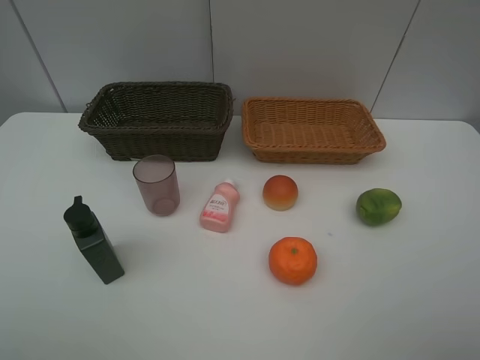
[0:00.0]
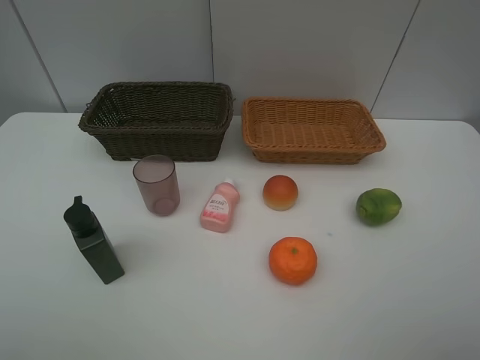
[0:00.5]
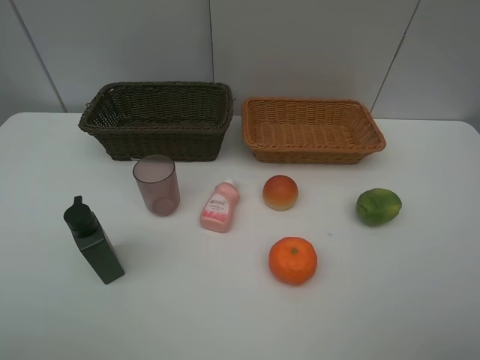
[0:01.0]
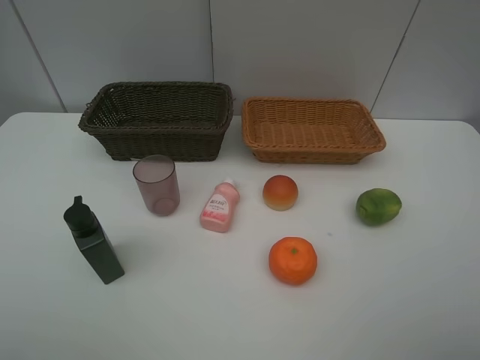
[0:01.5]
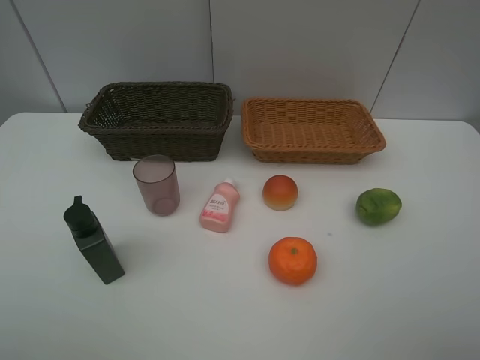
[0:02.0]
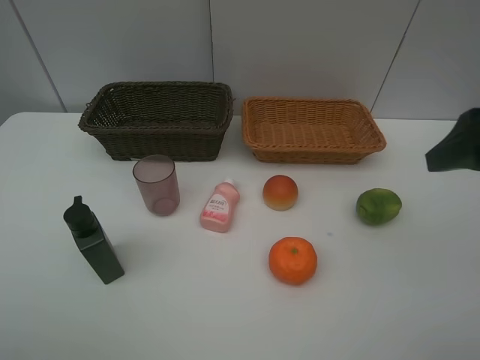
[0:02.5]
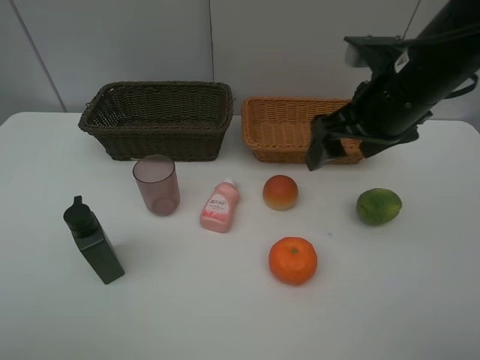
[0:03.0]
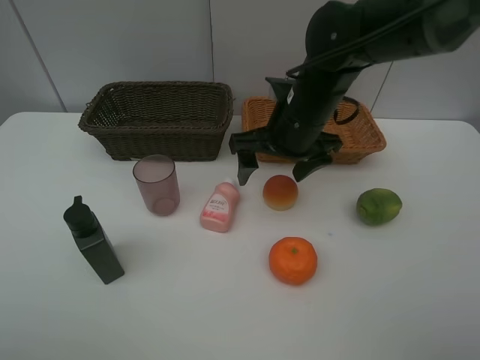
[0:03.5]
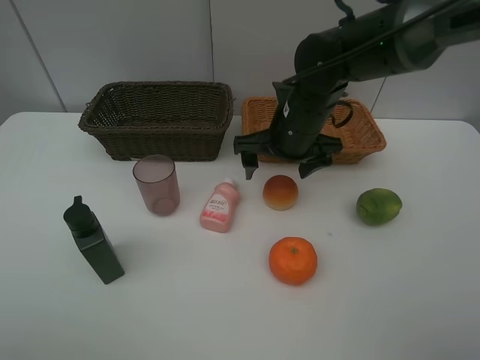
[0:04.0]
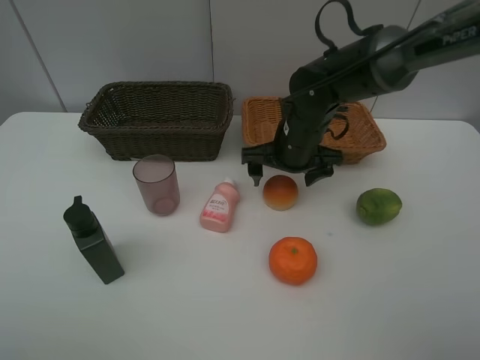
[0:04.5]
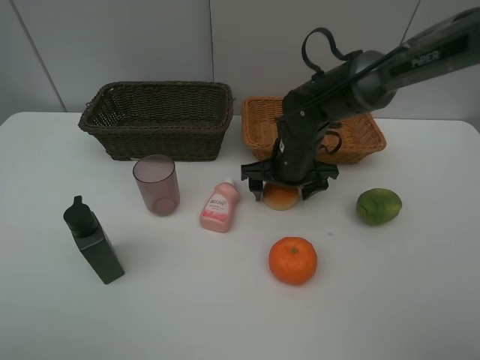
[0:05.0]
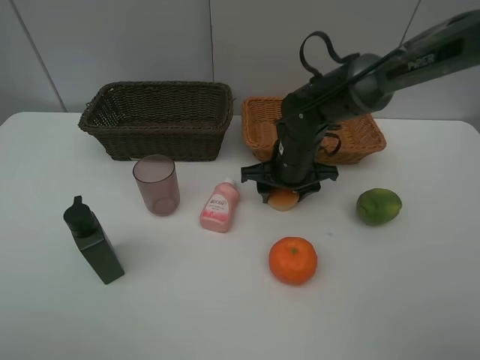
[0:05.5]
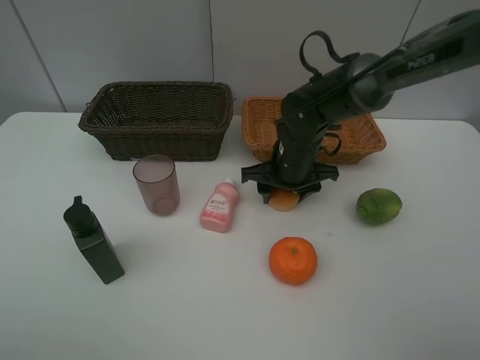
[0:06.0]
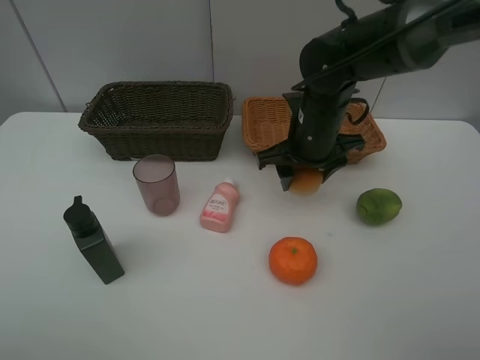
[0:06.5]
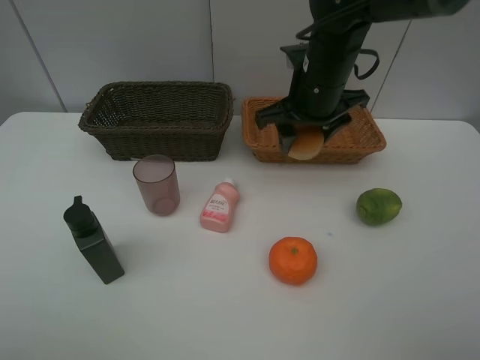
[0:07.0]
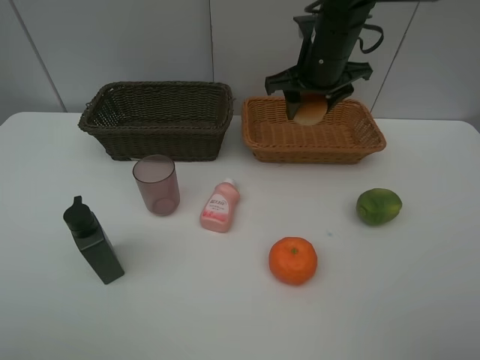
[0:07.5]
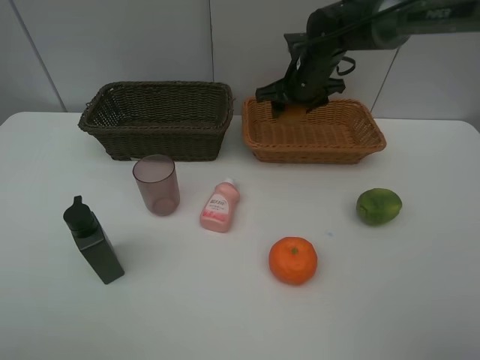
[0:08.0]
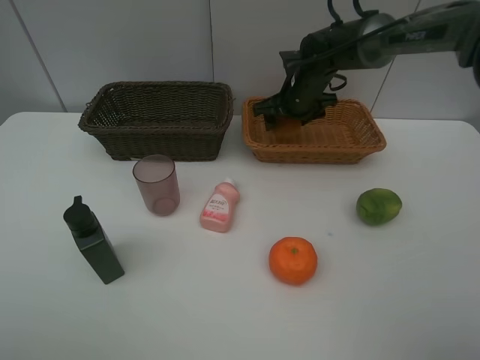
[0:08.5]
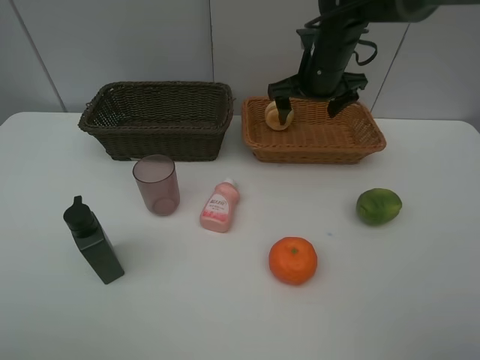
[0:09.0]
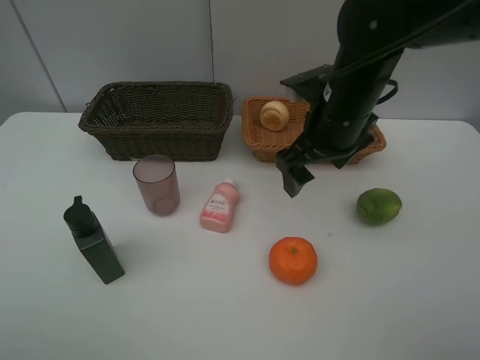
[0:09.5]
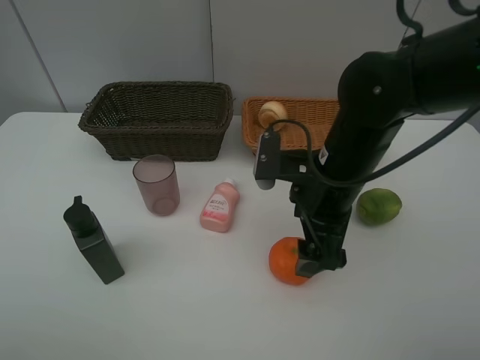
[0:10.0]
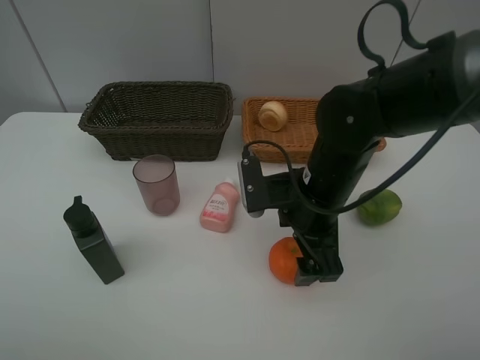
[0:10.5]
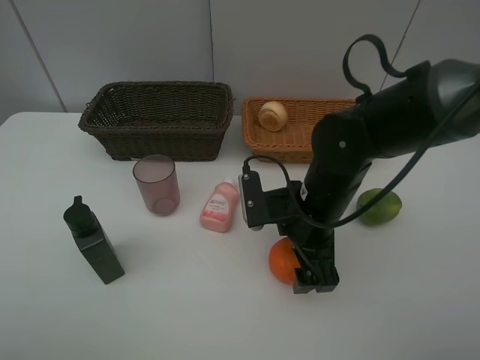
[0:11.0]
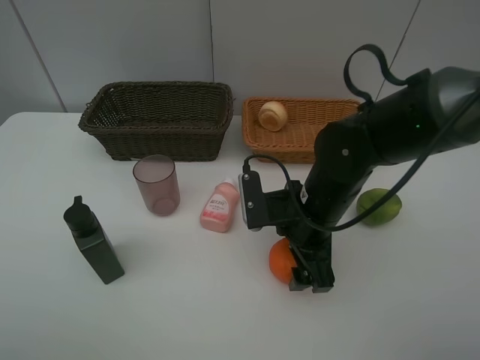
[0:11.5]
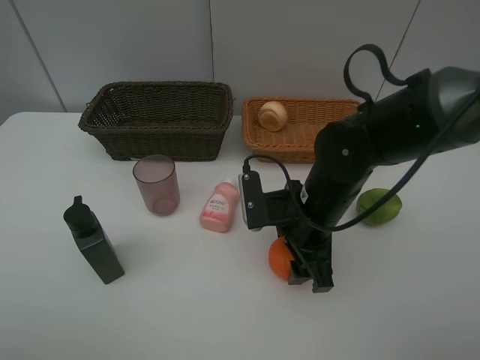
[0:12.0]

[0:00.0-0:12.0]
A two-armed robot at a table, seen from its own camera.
Task of the whole recording: place multiple objects separately in different baskets.
0:00.0 to 0:02.0: The two grippers keep their place.
0:02.0 to 0:04.0: The right gripper shifts some 40 cm forward and to the left.
0:04.0 to 0:06.0: The right gripper is displaced downward by roughly 5 cm, and closes.
0:06.0 to 0:08.0: The right gripper travels forward and upward by about 15 cm.
0:08.0 to 0:10.0: The right gripper travels backward by some 25 cm, and opens up.
0:10.0 to 0:12.0: The right gripper heads downward, covering roughly 5 cm, and closes its fingers.

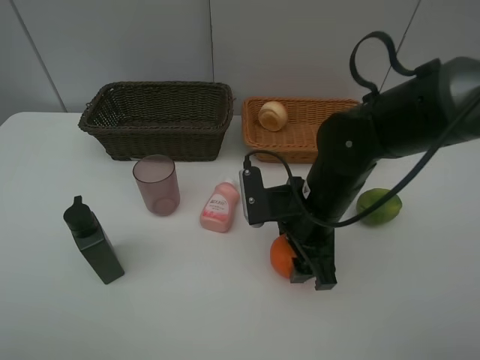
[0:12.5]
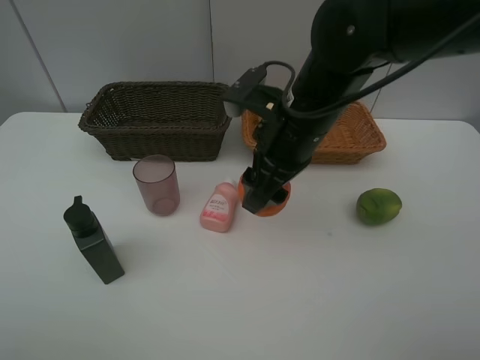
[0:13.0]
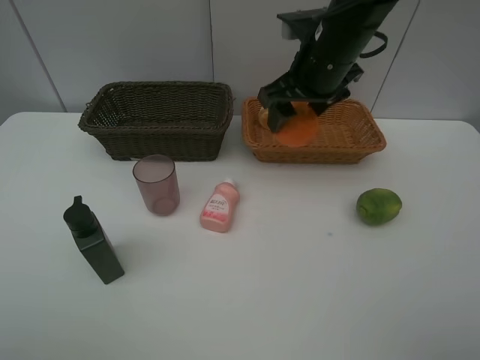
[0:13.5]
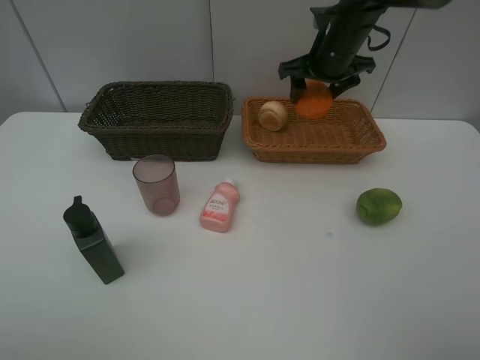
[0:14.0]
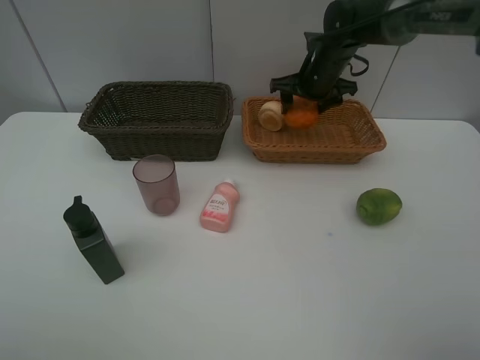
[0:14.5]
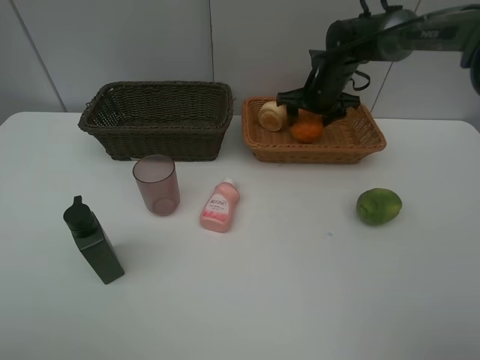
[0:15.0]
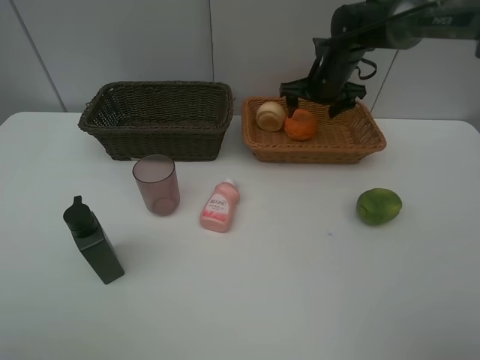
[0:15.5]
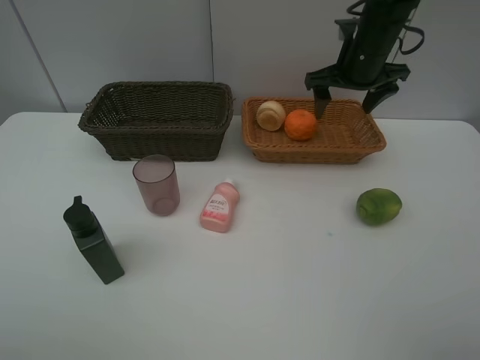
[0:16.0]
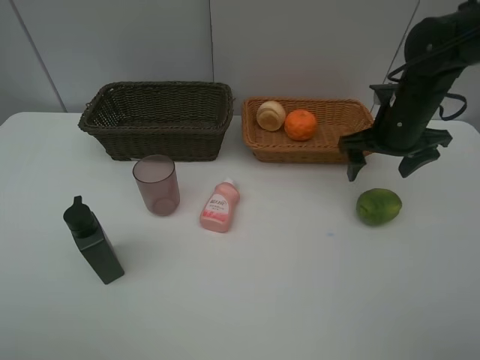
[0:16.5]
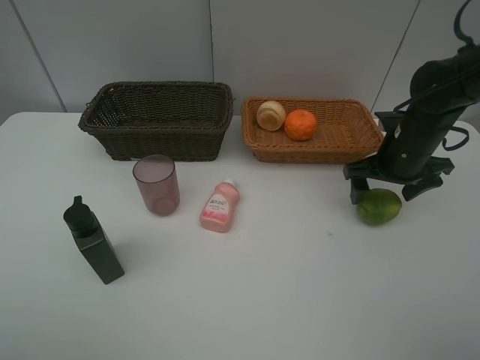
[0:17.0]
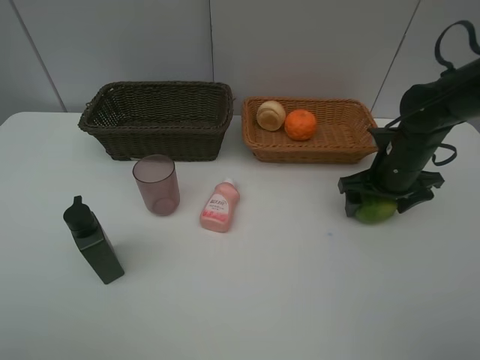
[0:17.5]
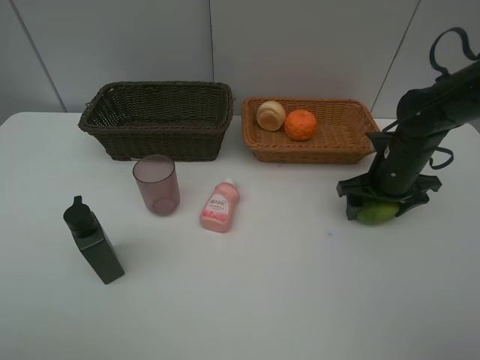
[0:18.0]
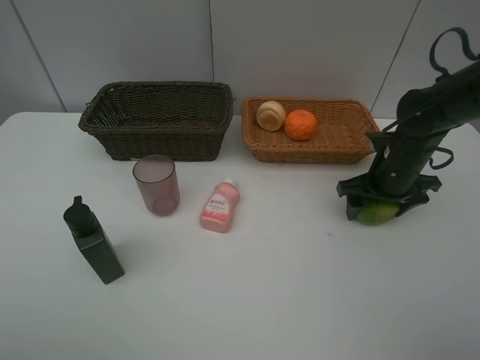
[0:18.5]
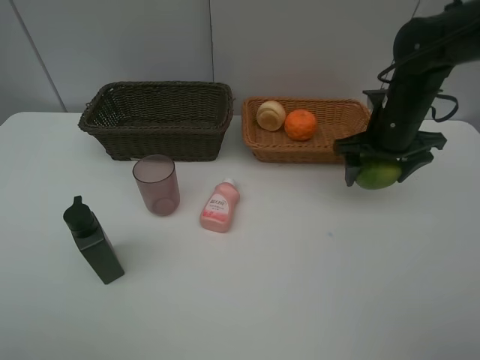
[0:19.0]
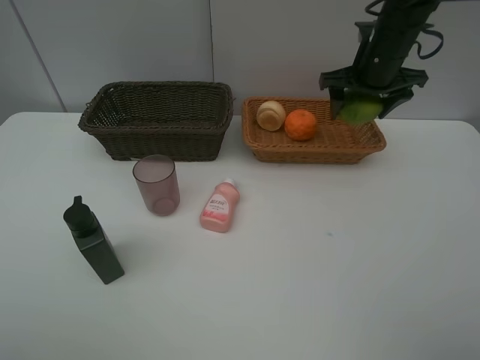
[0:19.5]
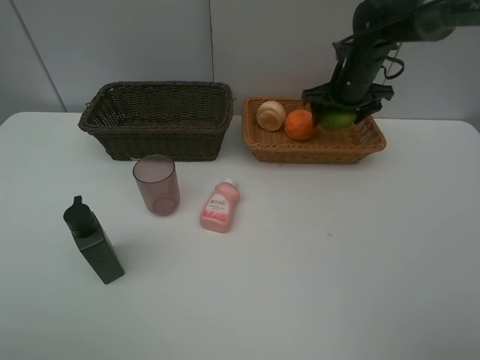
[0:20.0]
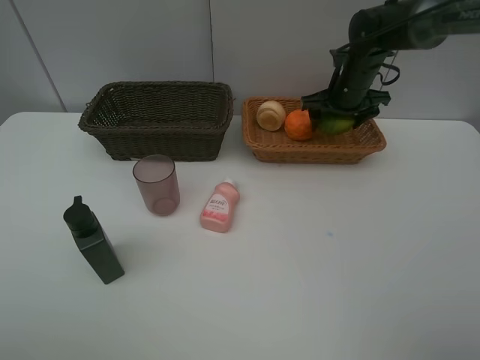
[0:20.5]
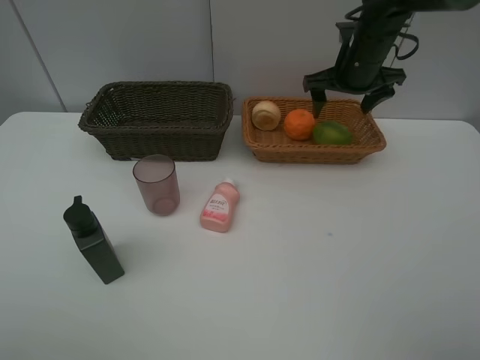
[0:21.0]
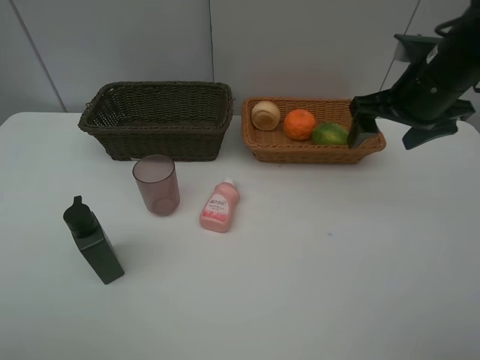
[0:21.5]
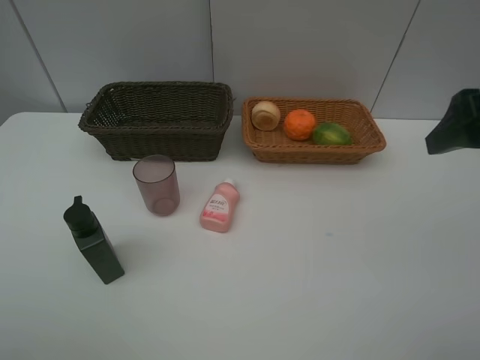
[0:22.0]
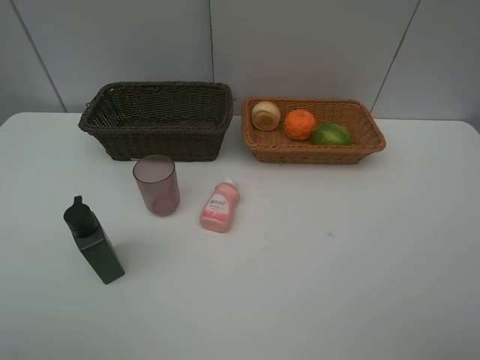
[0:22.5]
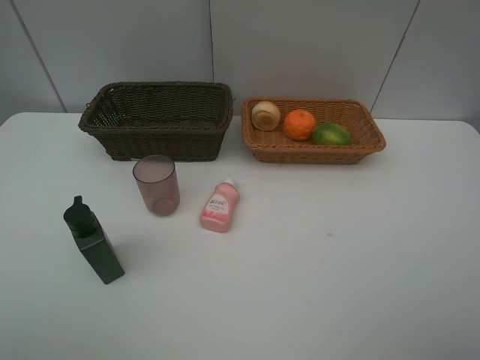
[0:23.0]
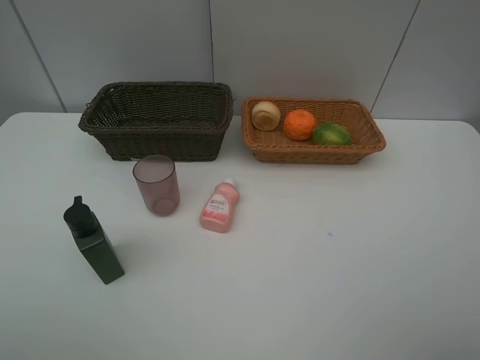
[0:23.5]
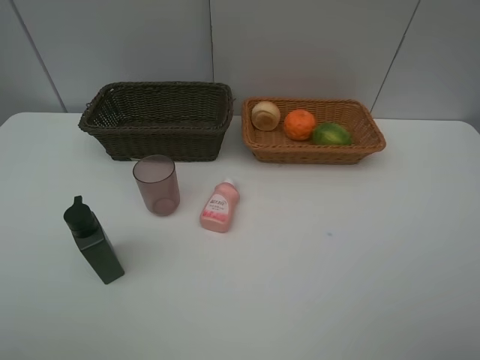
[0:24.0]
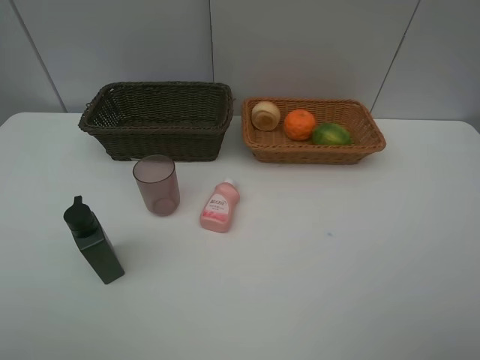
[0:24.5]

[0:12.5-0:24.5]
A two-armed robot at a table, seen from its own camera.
Task of the whole recording: place multiple objects separately in different baskets.
0:12.5 to 0:14.5: The right gripper is displaced forward by some 25 cm.
0:14.5 to 0:16.5: The right gripper shifts approximately 15 cm backward and to the right, and opens its fingers.
0:16.5 to 0:18.5: The right gripper shifts approximately 5 cm downward.
0:18.5 to 0:20.5: The right gripper heads forward and upward, covering some 15 cm.
0:20.5 to 0:22.5: The right gripper travels backward by some 40 cm.

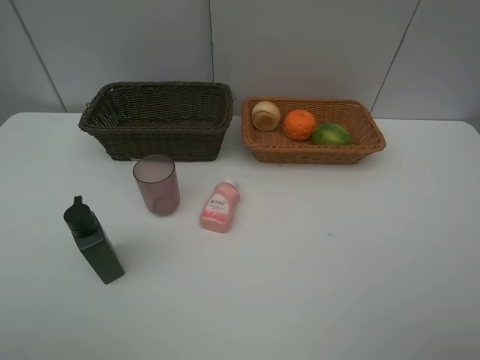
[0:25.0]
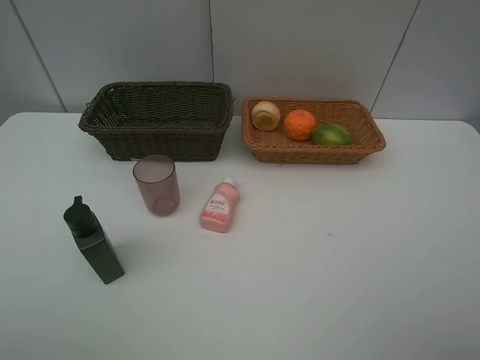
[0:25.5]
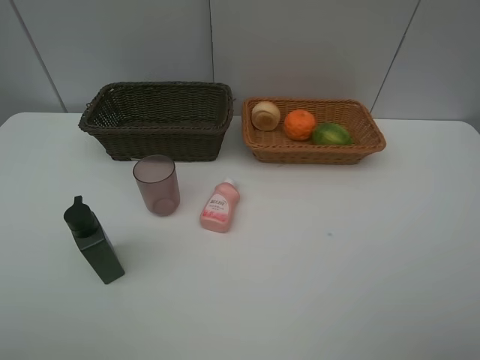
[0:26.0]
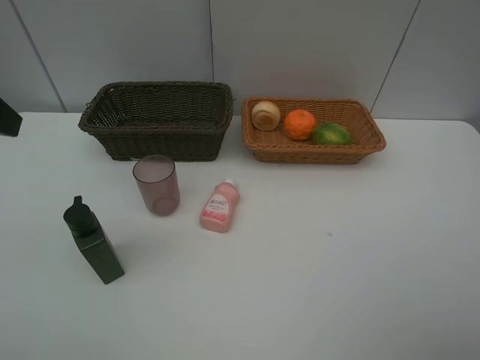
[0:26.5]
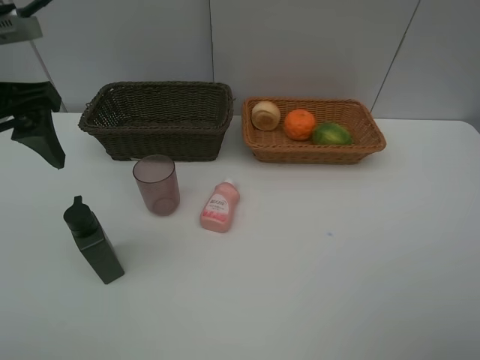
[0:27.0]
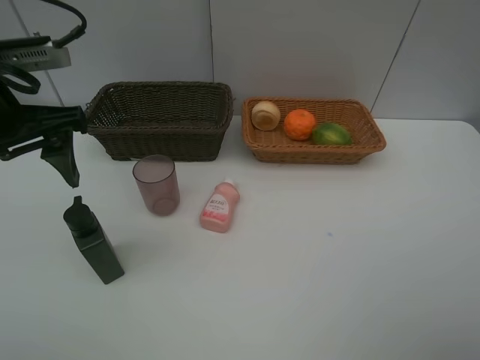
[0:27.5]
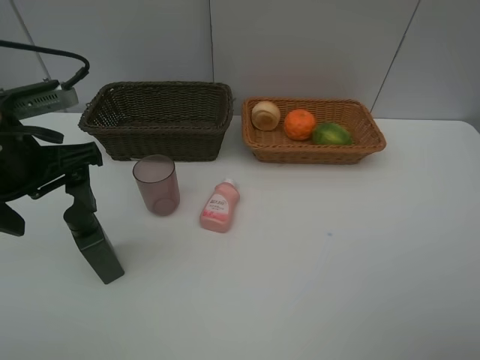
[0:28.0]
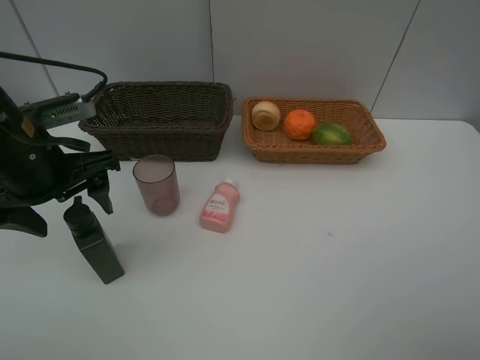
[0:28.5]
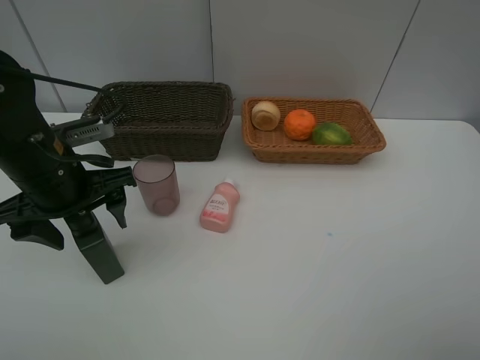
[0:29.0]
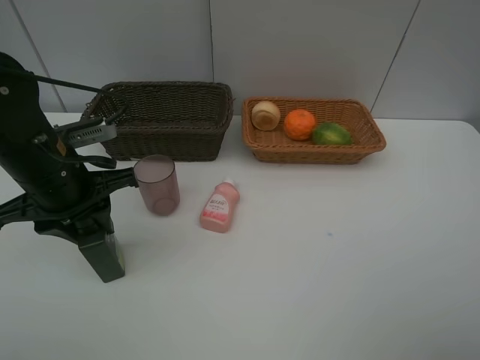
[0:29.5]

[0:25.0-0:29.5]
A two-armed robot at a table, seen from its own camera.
Task of the whole recording: place multiple objects separately in different baskets.
0:25.0 to 0:27.0: The left gripper is displaced forward by approximately 20 cm.
0:27.0 to 0:29.5: The left gripper moves downward, approximately 10 cm, and closes its fingers.
